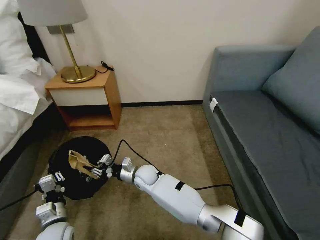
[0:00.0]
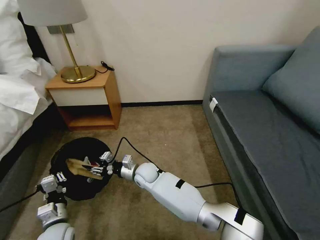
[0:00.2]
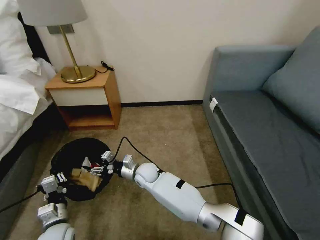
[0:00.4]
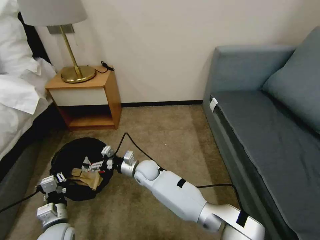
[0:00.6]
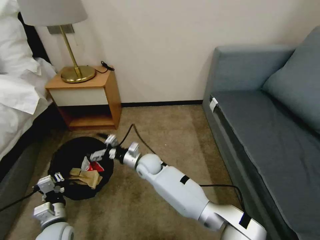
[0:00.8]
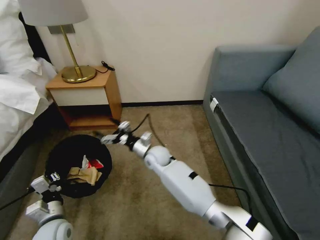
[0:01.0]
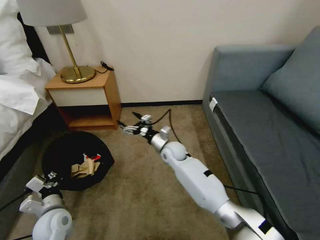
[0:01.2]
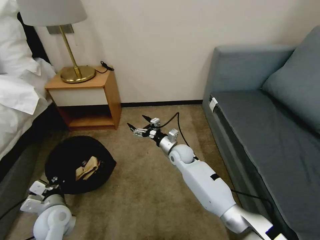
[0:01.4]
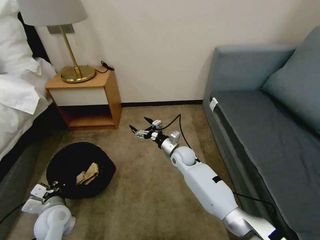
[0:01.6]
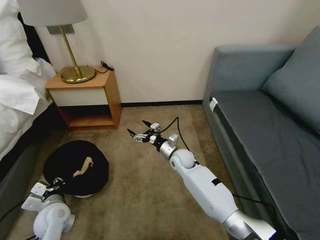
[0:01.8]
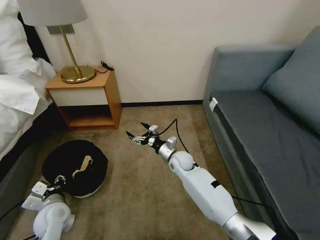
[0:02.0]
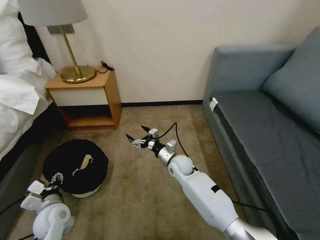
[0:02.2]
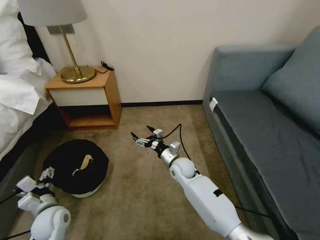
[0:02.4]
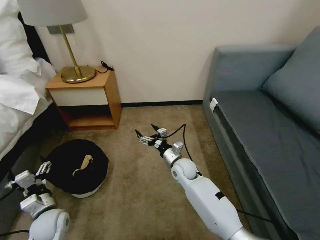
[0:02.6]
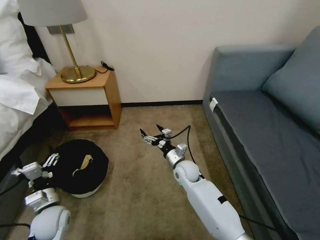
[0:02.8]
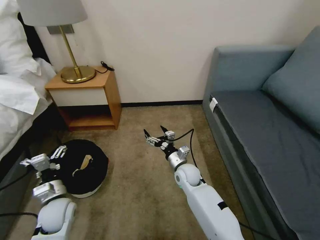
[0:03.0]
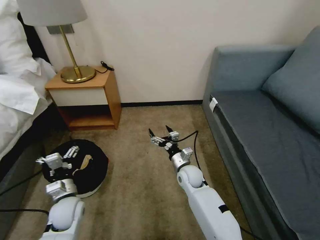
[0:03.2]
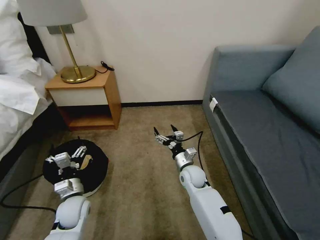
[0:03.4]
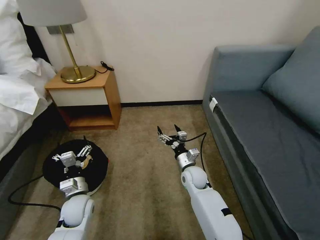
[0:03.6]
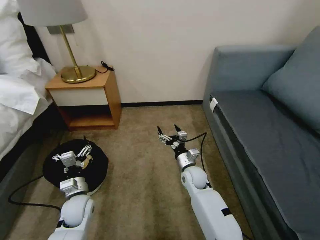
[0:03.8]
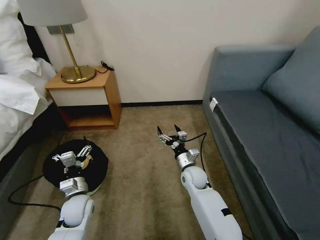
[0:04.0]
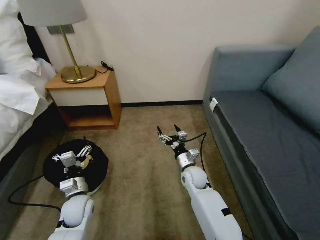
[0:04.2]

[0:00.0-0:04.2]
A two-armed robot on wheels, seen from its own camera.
Task of the whole recording: Pick up the trash bin, then pick up the garbage on the floor and place it into the trash bin.
0:00.0 to 0:01.4: The right gripper travels to the right and forward by roughly 15 cm, and opens. Meanwhile the left gripper changes place by roughly 5 cm.
0:01.4 to 0:02.8: The left gripper opens. Meanwhile the right gripper heads backward, covering roughly 5 cm.
0:02.8 to 0:04.2: The left gripper moves to the right, roughly 5 cm.

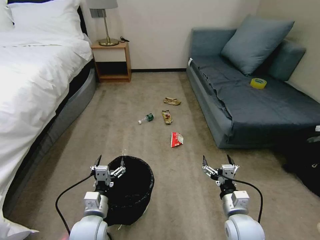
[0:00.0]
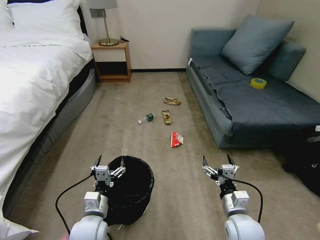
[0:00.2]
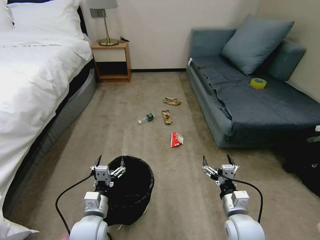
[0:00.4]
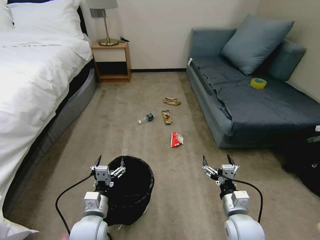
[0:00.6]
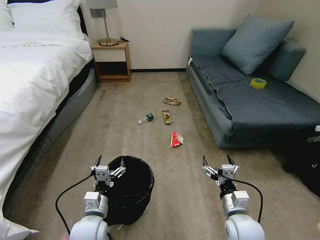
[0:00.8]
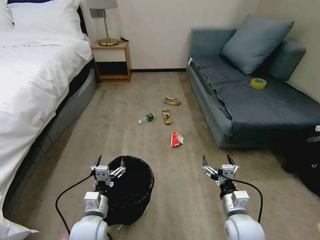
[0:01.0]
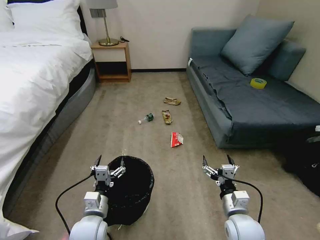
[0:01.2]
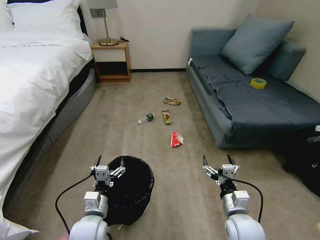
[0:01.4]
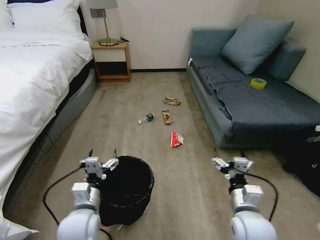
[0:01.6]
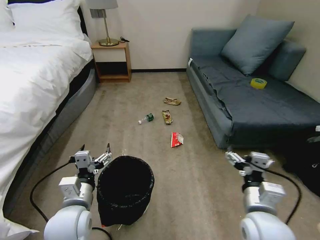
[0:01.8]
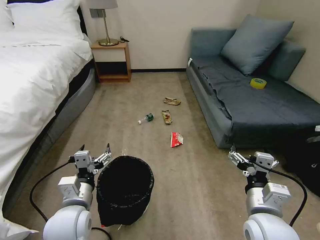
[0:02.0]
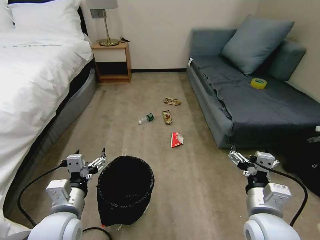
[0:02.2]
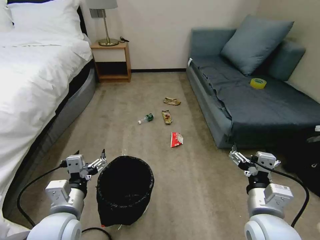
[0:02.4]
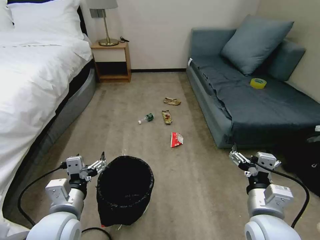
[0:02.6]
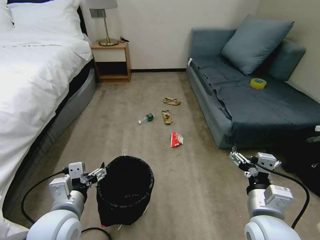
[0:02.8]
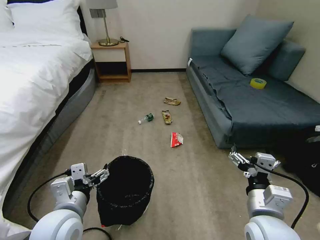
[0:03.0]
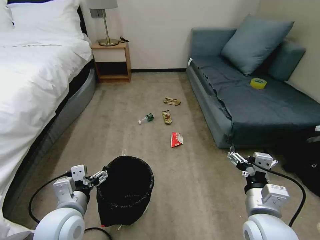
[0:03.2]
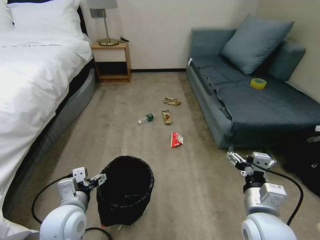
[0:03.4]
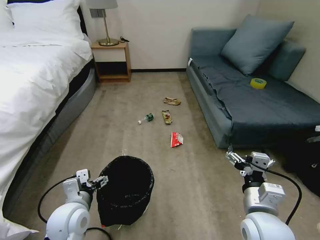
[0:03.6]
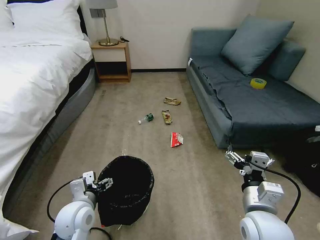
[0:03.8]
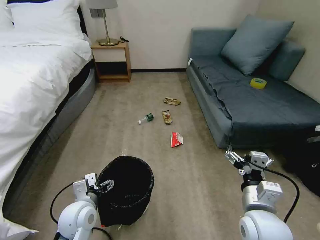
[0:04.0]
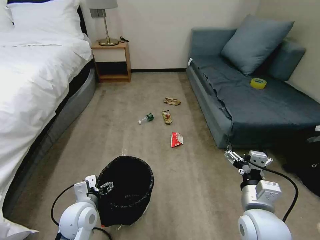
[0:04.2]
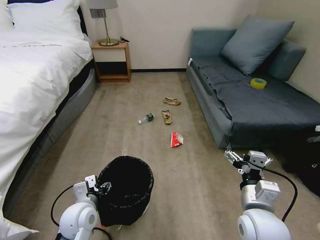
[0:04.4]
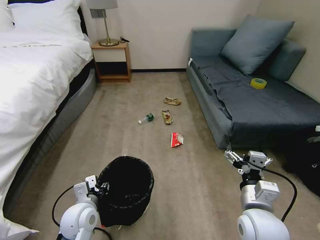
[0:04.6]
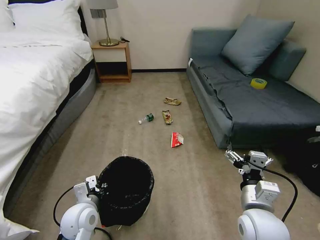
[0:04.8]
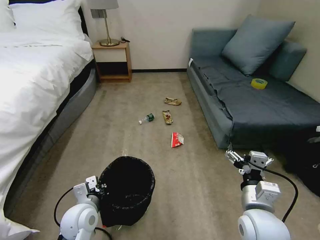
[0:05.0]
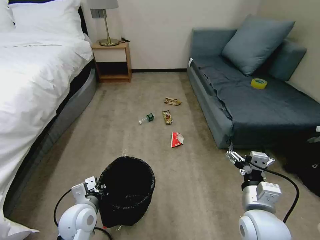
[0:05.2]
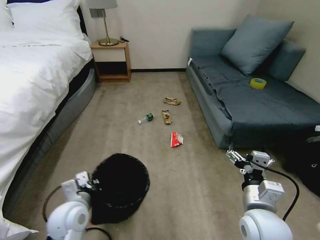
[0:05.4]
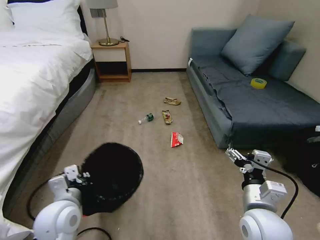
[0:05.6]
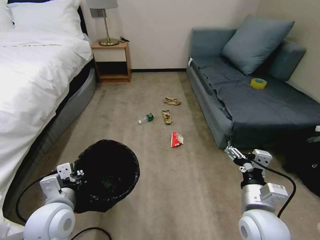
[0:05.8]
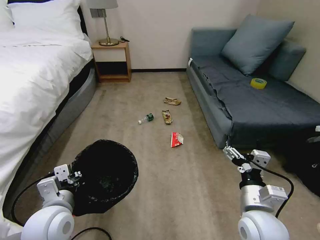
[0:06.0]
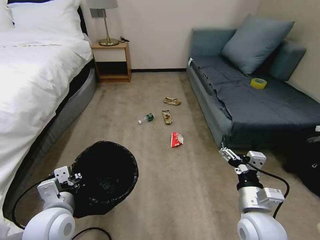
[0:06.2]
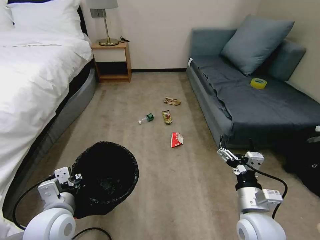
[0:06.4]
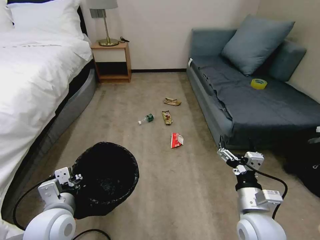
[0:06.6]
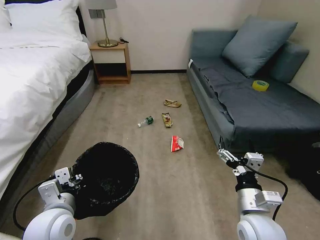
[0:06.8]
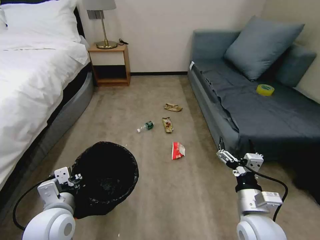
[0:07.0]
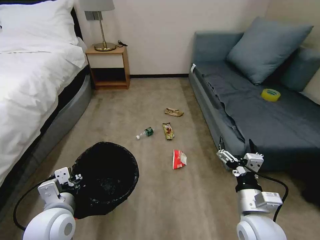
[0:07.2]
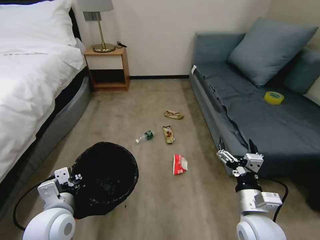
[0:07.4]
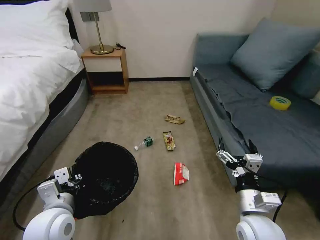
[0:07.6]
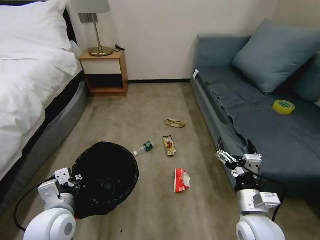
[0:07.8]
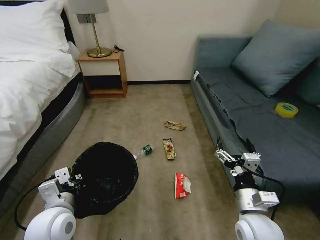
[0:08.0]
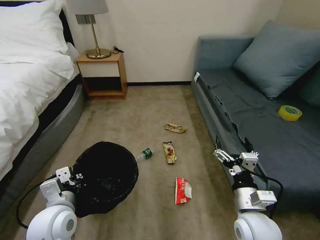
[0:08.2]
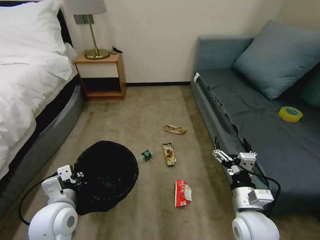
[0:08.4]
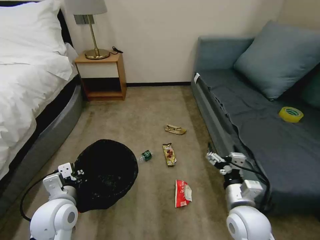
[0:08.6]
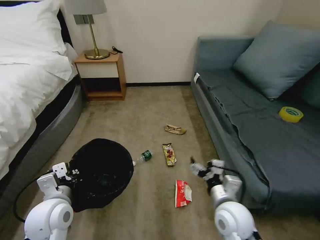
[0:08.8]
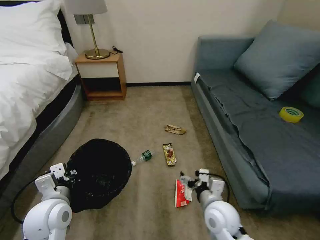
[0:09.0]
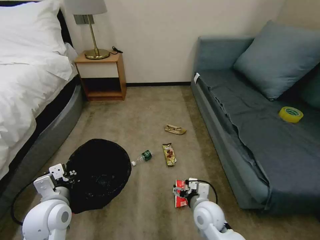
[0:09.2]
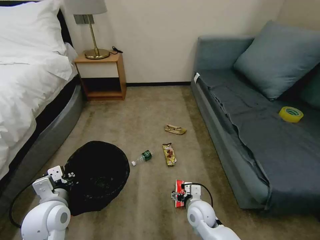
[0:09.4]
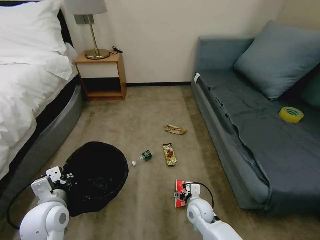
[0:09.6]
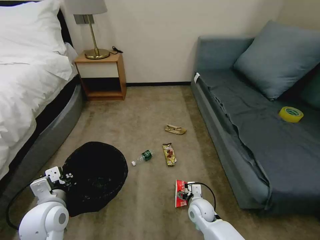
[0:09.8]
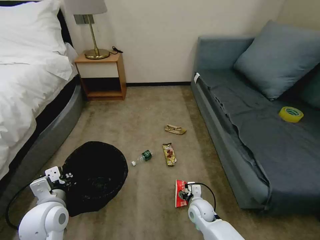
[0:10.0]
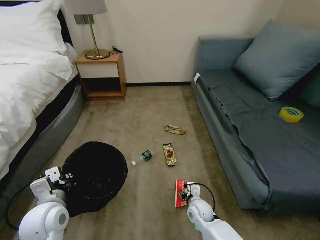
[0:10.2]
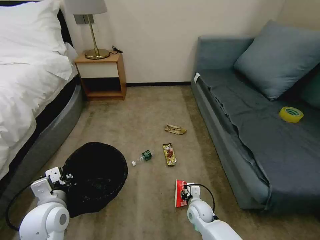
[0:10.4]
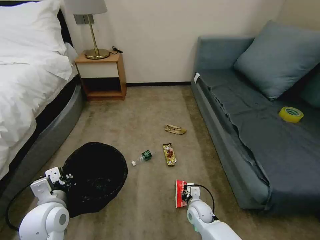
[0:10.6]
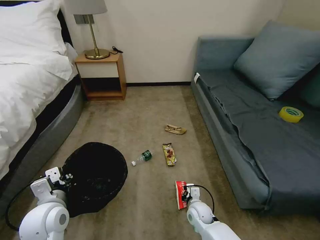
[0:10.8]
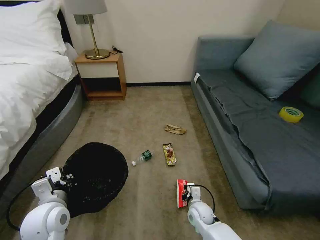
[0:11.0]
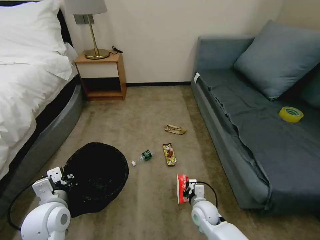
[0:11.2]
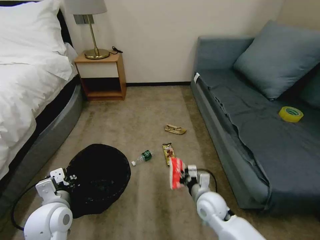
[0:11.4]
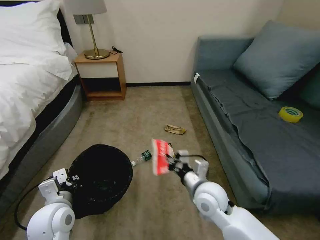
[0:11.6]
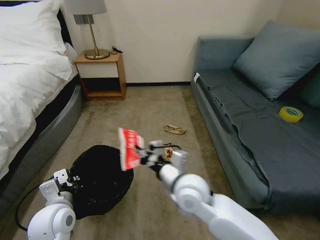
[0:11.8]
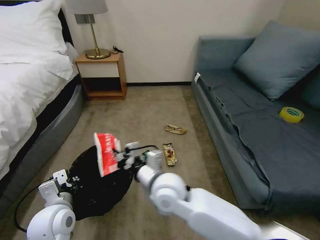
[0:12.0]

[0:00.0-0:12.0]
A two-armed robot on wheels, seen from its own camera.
Task of the whole recording: Pick up the trash bin, then pick up the garbage on the floor and place it into the trash bin.
0:01.6 to 0:03.0: The grippers both shift upward by about 10 cm.
0:03.0 to 0:04.4: The left gripper is displaced downward and forward by some 10 cm.
0:04.4 to 0:06.0: The left gripper is displaced upward by some 10 cm, and closes.
0:07.6 to 0:09.0: The right gripper travels to the left, downward and forward by about 10 cm.
0:09.0 to 0:10.4: The right gripper shifts approximately 15 cm downward, and closes up.
0:10.4 to 0:12.0: The right gripper goes some 30 cm upward and to the left, and closes its fingers.

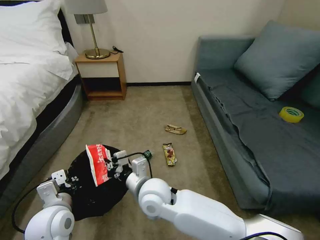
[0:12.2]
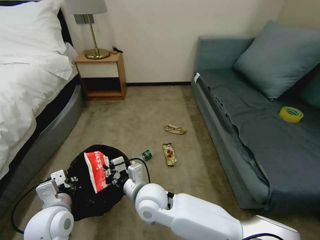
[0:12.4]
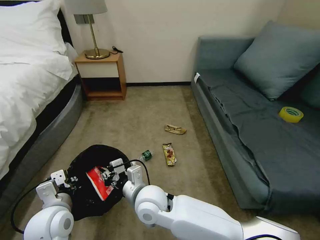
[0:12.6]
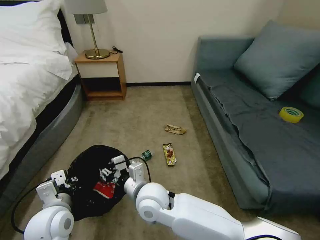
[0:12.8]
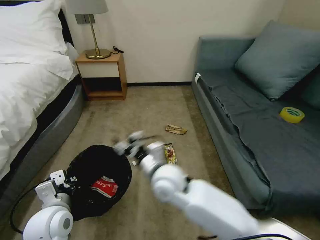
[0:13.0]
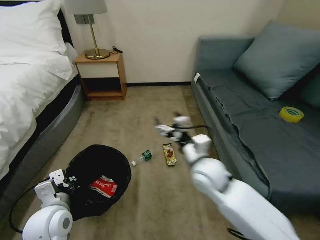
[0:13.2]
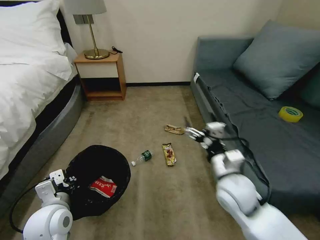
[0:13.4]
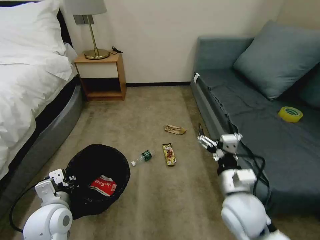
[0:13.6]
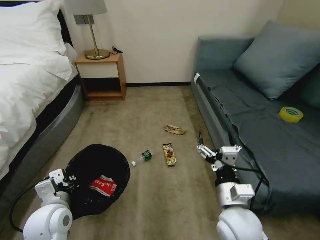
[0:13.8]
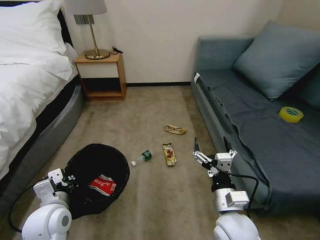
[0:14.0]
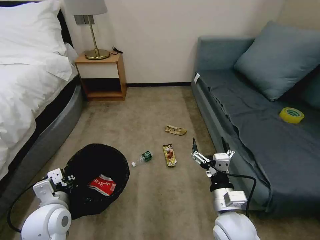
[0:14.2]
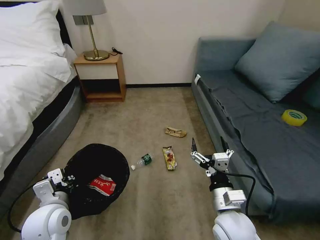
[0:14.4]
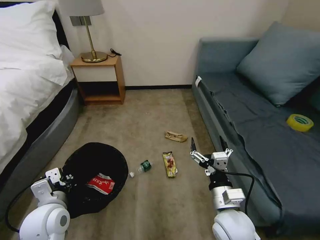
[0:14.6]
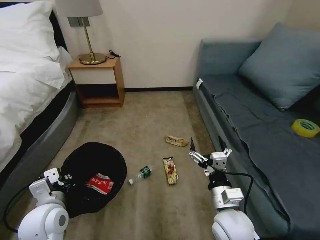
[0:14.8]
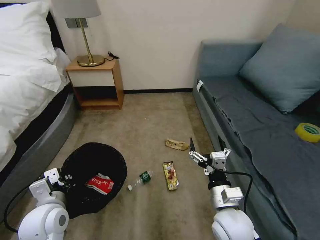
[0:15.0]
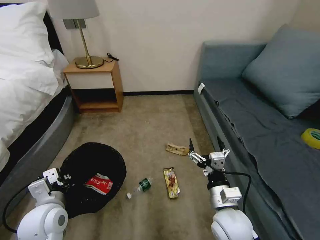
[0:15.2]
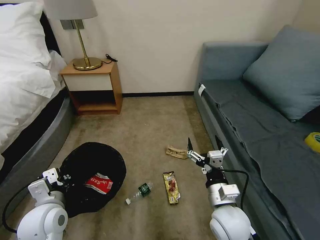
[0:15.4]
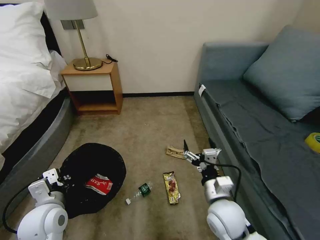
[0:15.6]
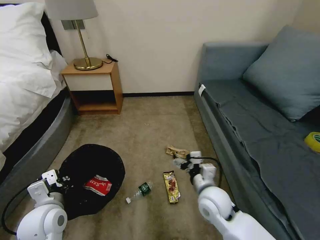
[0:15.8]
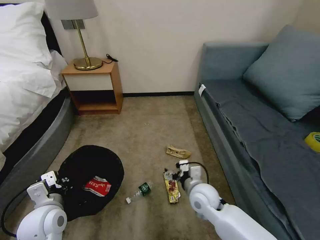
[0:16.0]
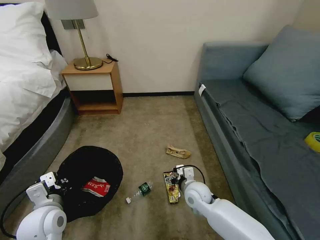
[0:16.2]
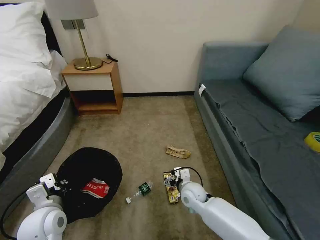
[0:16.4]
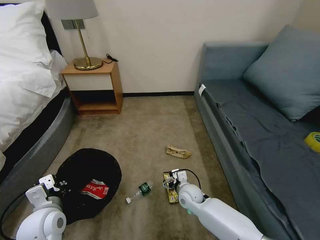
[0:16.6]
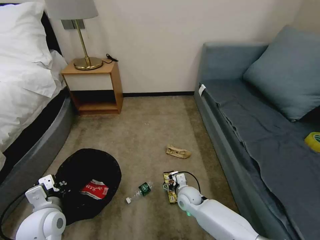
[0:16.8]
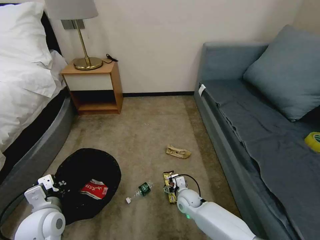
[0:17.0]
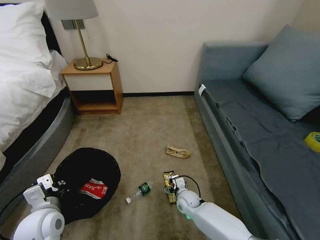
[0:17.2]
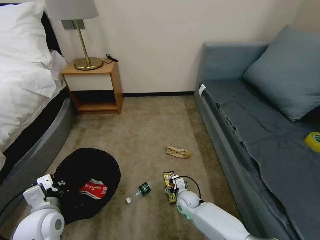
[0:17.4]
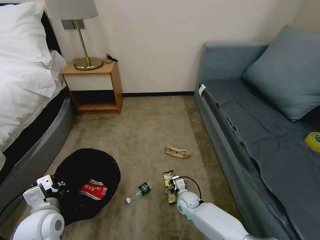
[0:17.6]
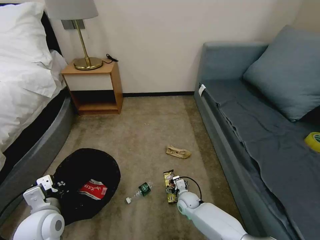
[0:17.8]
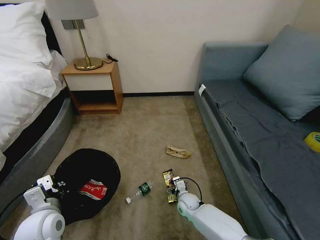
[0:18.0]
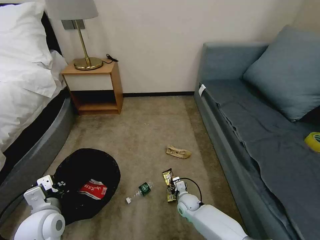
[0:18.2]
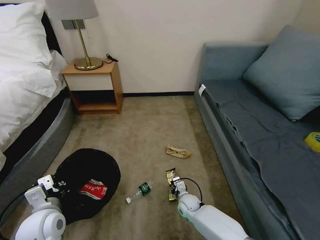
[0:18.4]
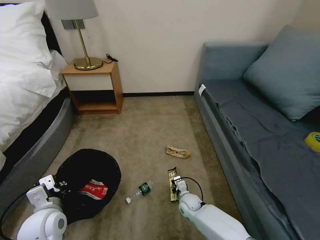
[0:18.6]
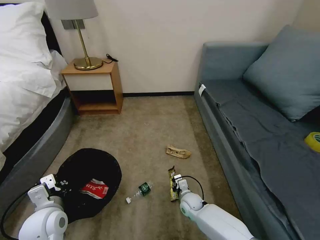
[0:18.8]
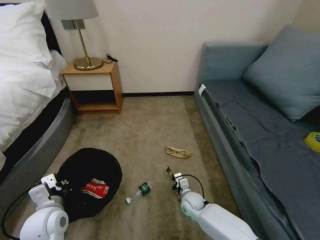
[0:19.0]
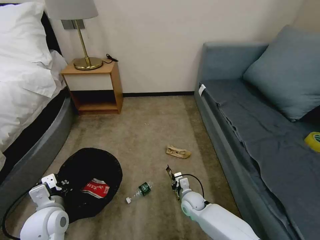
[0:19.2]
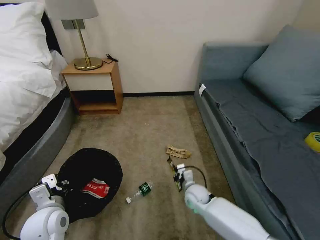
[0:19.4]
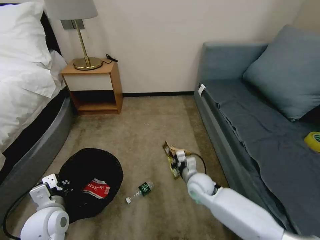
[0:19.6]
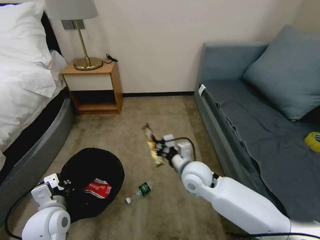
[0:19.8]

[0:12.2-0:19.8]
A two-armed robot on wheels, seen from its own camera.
Task of the whole recording: Pick up the trash bin, then pick up the garbage on the floor and place it into the trash bin.
0:12.2 to 0:13.8: The right gripper heads to the right, covering about 20 cm, and opens its fingers.
0:15.2 to 0:16.8: The right gripper moves downward and forward, roughly 25 cm.
0:16.8 to 0:18.2: The right gripper is displaced downward by approximately 5 cm.
0:18.2 to 0:19.8: The right gripper shifts about 30 cm upward, and closes its fingers.
